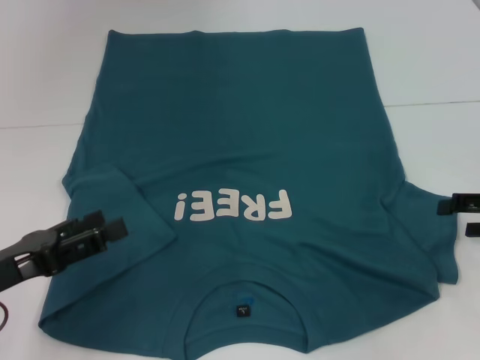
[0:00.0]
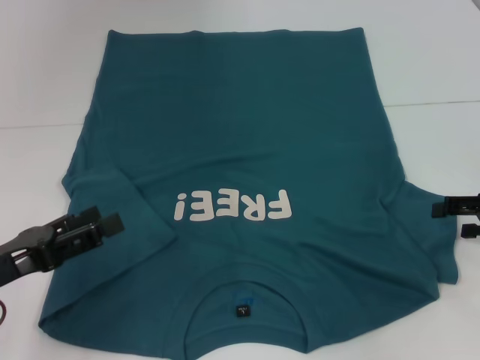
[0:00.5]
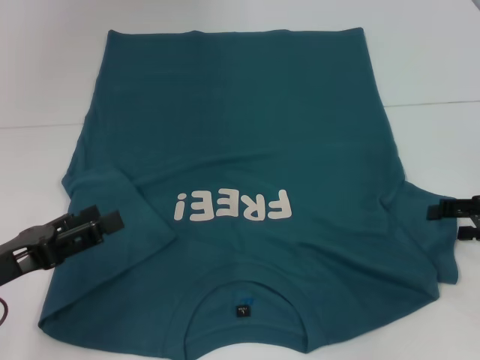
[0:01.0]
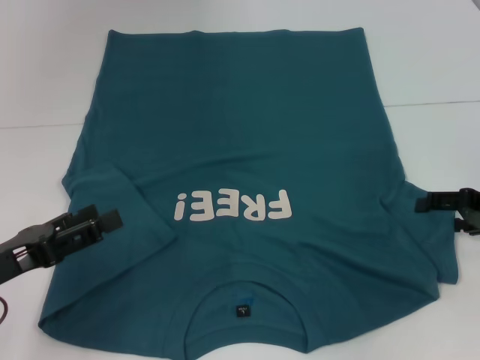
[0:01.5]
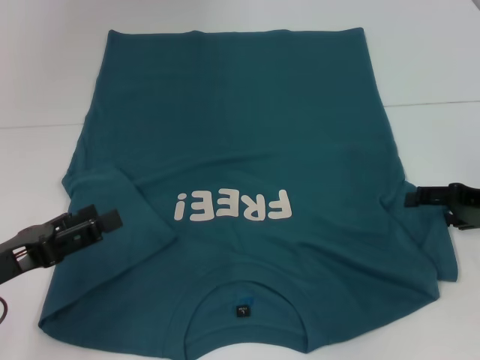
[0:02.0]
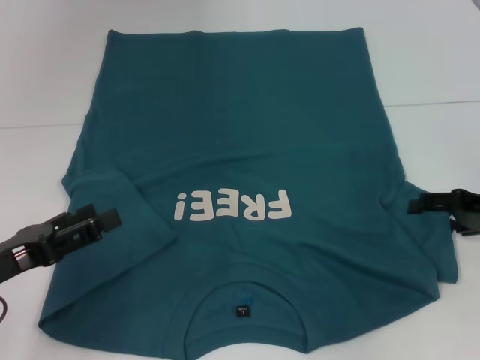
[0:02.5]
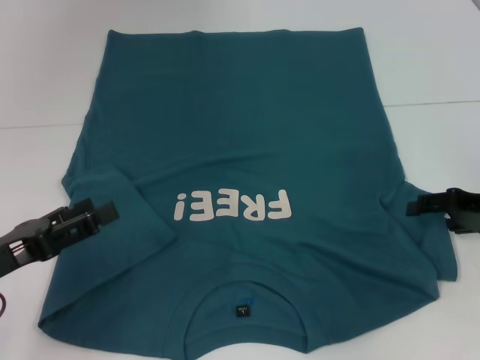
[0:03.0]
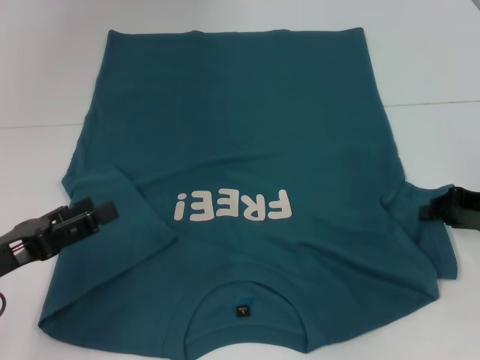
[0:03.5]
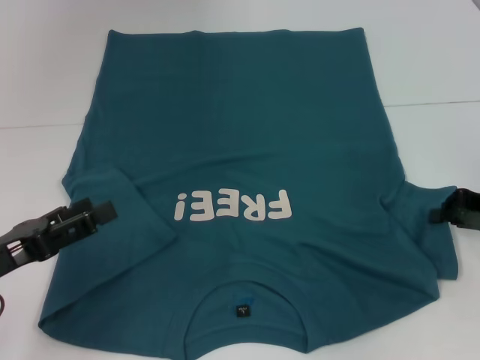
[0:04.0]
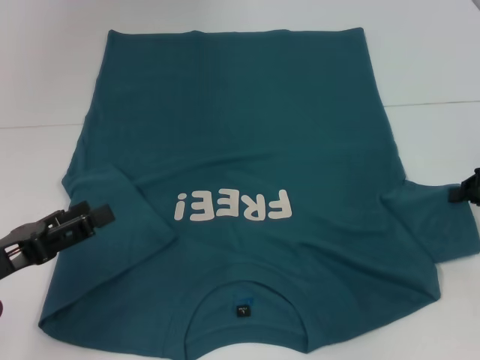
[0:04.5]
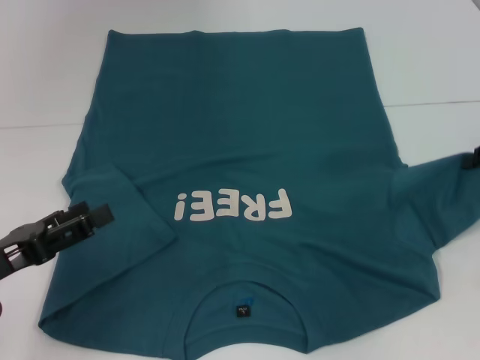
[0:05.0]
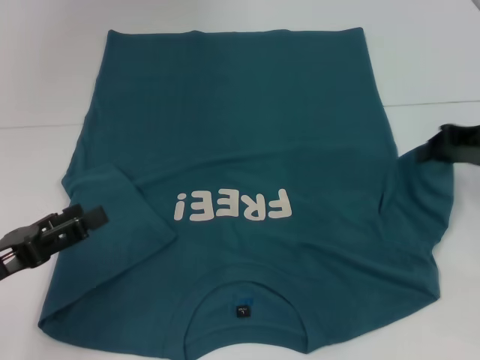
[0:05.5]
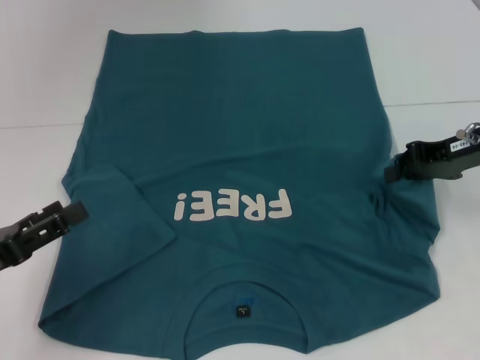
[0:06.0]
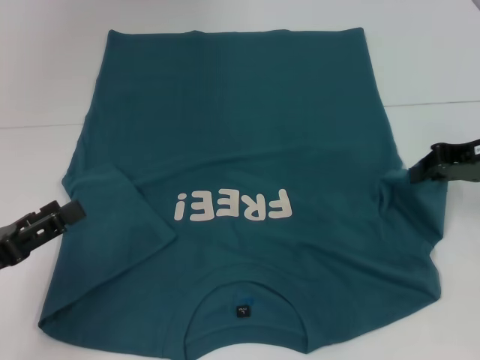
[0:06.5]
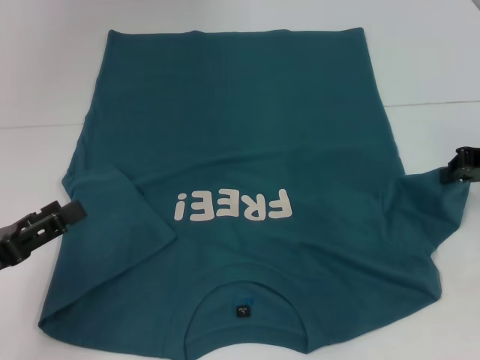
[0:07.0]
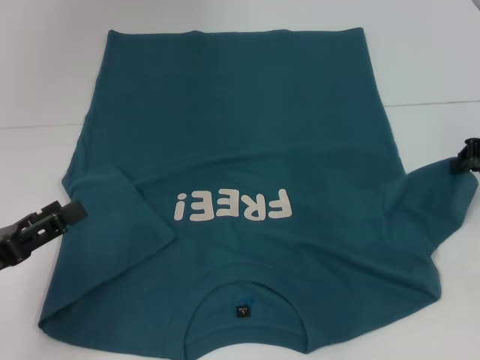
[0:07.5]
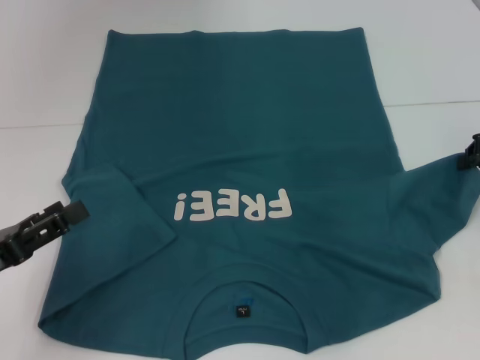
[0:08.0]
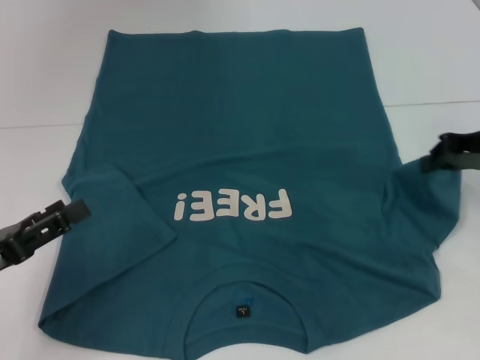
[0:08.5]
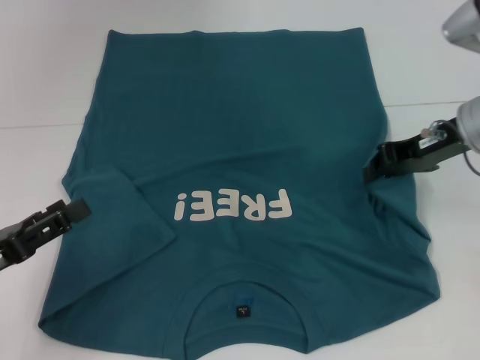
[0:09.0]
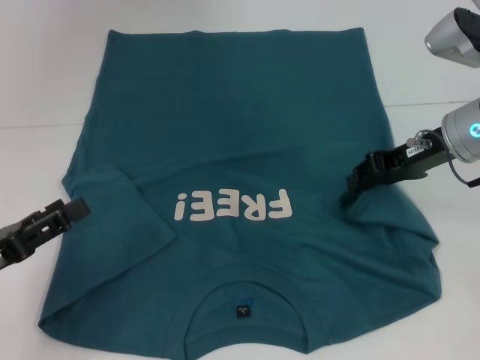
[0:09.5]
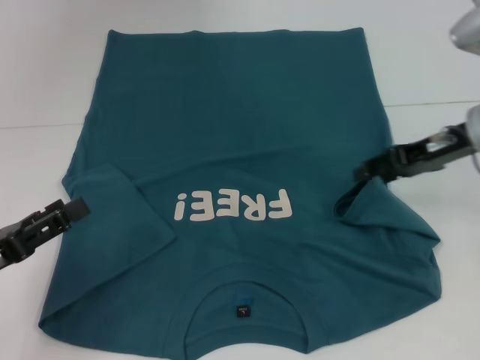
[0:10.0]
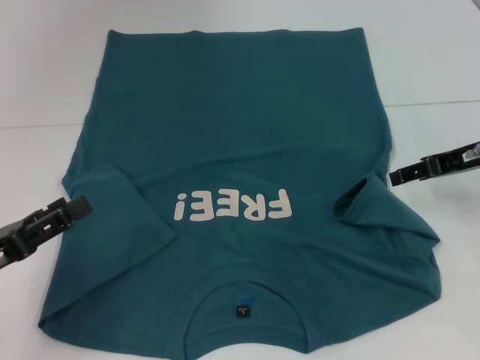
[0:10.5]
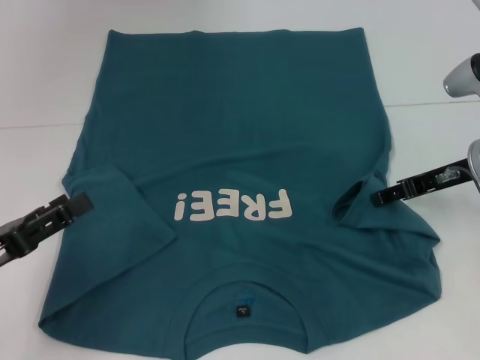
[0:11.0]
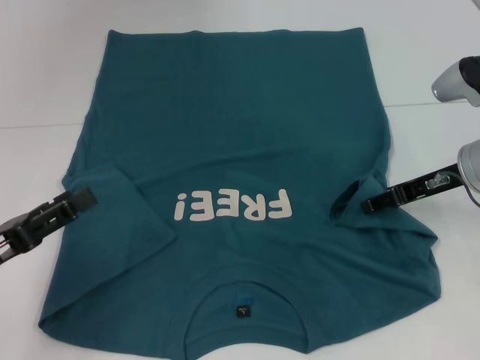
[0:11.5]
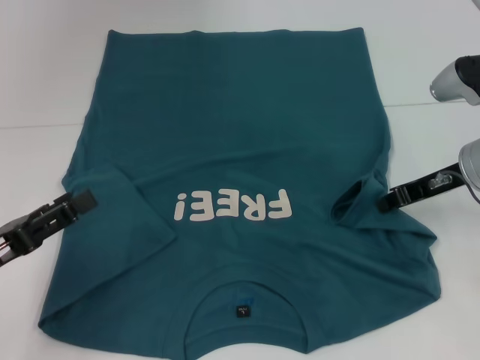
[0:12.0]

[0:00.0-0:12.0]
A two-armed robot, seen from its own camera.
0:00.0 to 0:02.0: The grippers stay close to where they were, moving slightly.
0:02.0 to 0:04.0: The right gripper closes up.
0:04.0 to 0:06.0: The right gripper goes approximately 10 cm upward and to the left.
0:06.0 to 0:08.0: The right gripper moves to the right, about 5 cm.
0:08.0 to 0:10.0: The right gripper is displaced to the left by approximately 10 cm, and opens its fingers.
0:10.0 to 0:12.0: The grippers make only small movements.

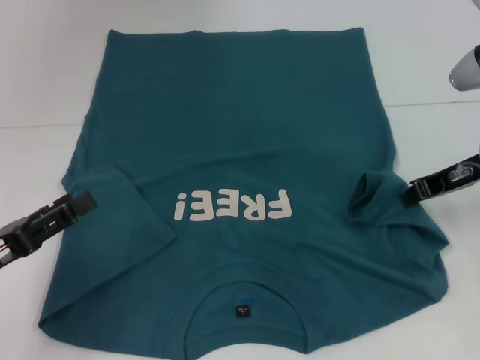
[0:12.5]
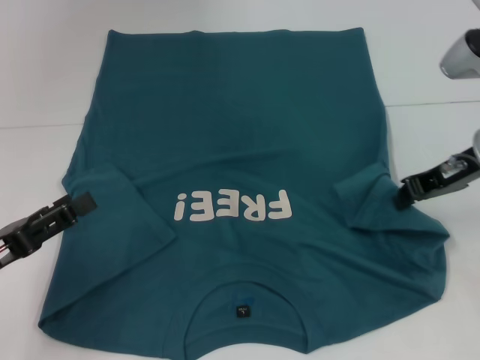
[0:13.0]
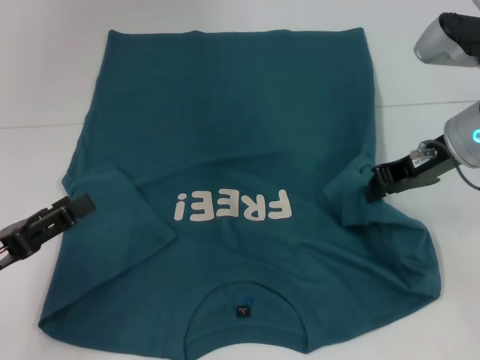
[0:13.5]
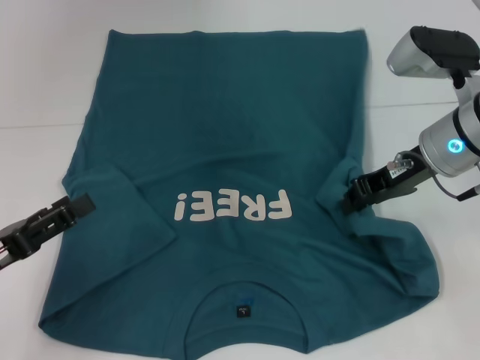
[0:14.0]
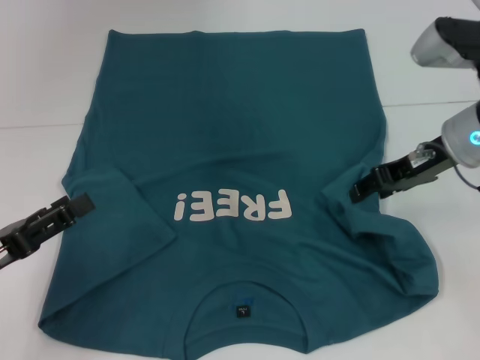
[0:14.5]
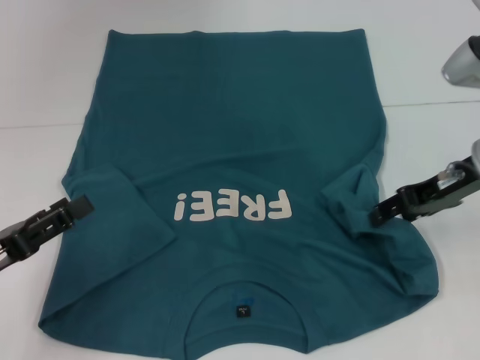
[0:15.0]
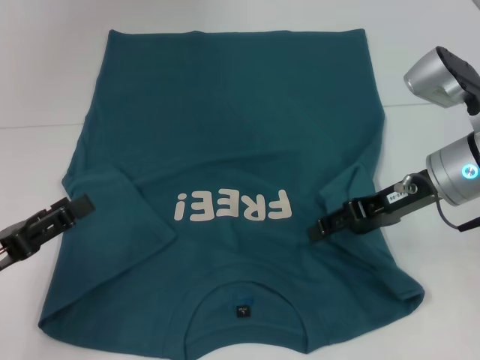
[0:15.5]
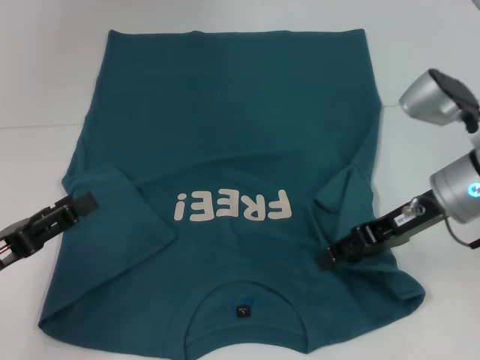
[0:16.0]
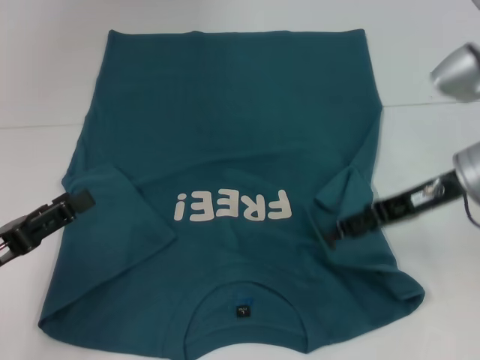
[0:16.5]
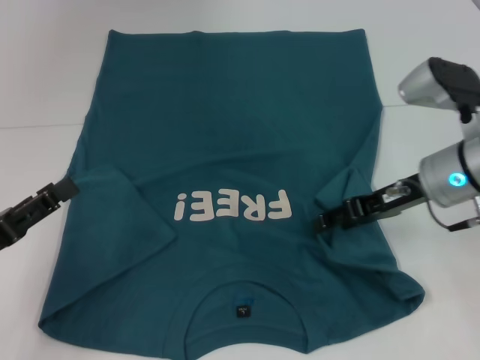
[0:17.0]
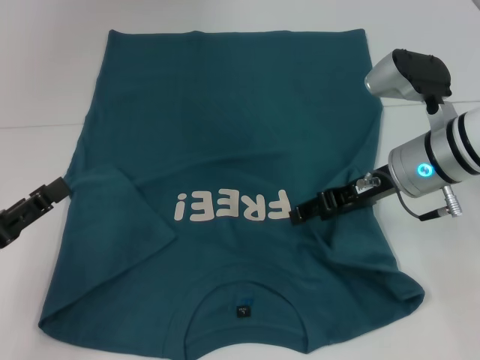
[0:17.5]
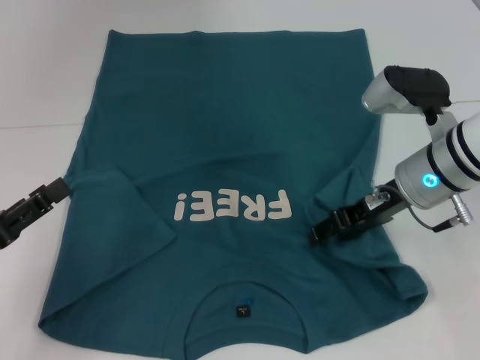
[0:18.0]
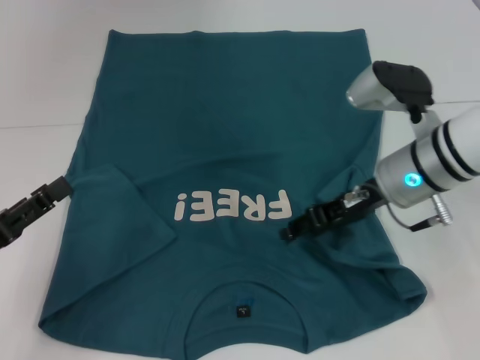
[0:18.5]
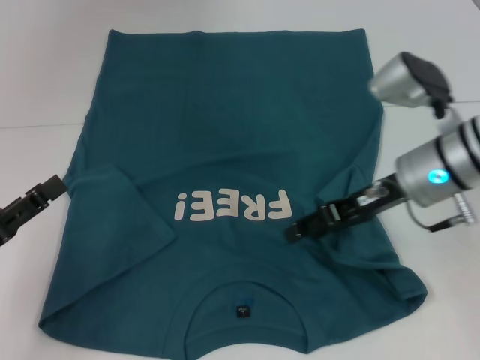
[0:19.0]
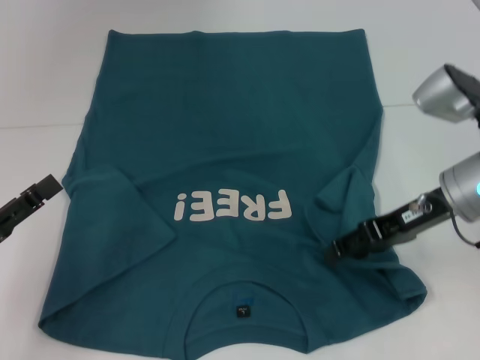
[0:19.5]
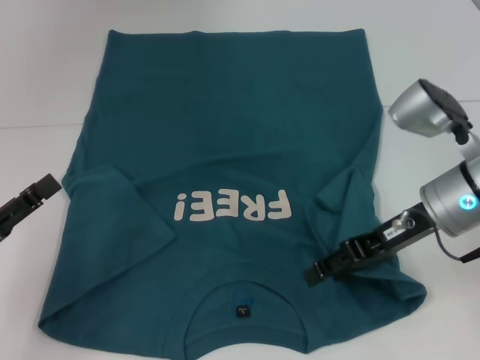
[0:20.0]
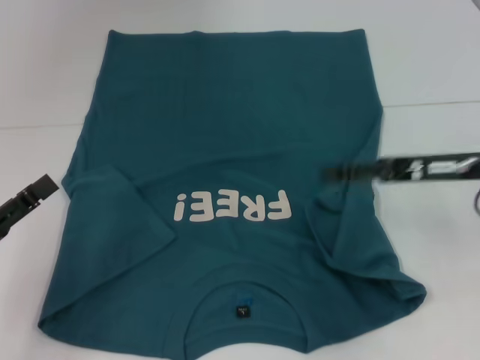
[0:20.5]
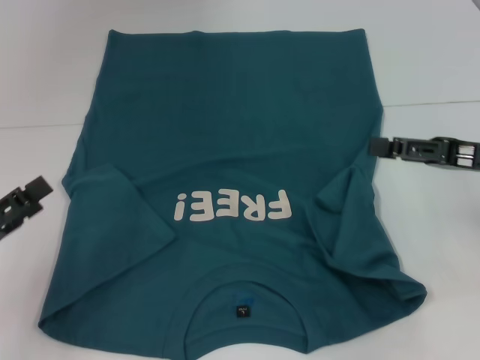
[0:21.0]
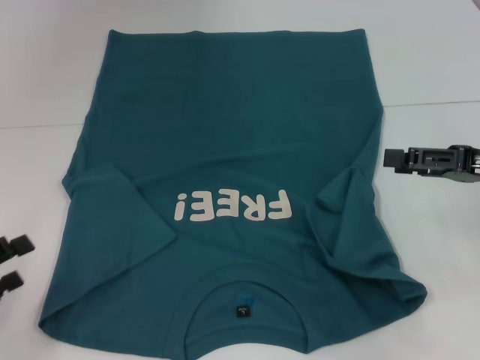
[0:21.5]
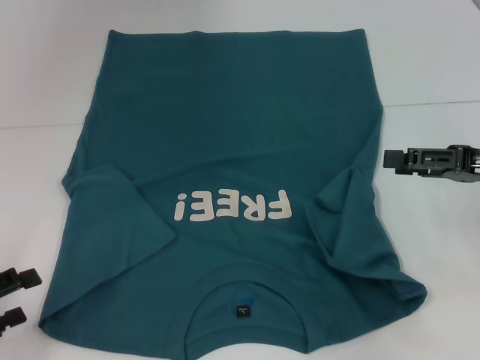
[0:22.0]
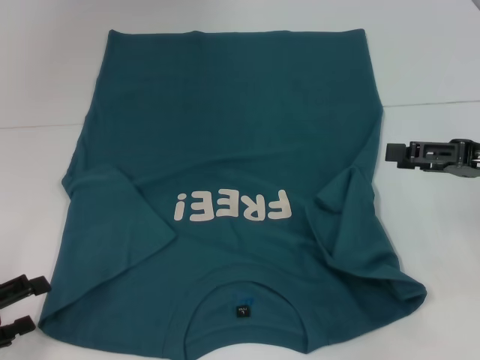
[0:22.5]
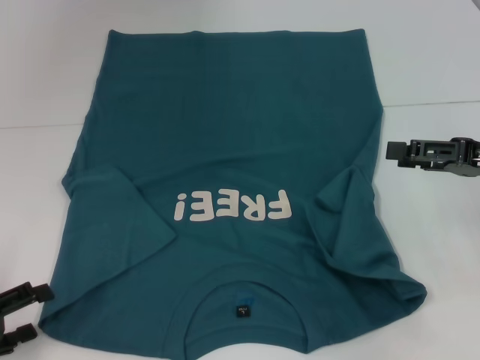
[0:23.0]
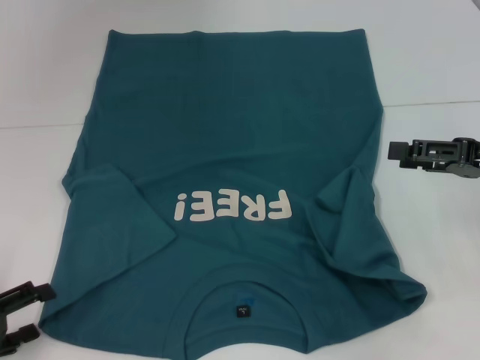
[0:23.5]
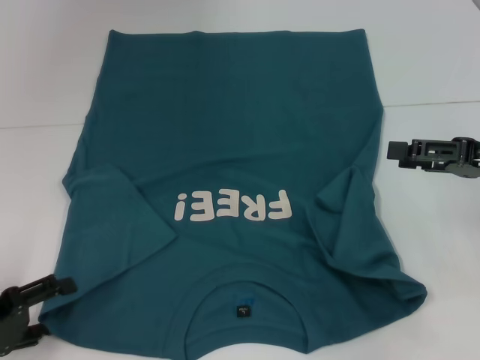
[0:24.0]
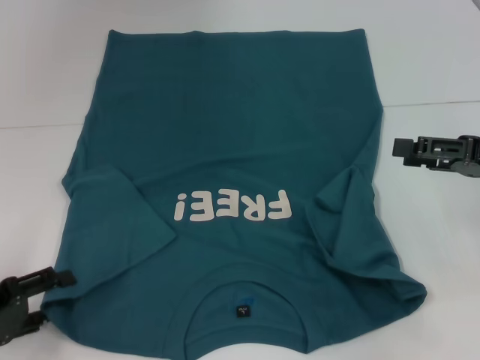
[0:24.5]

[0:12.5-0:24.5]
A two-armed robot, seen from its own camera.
Step, 0:12.5 to 0:20.5: Fold the bottom right sleeve to the right.
0:12.5 to 0:14.5: The right gripper shifts by approximately 5 cm, and opens.
0:16.5 to 0:18.5: The right gripper travels to the left by about 5 cm.
0:18.5 to 0:20.5: The right gripper moves to the right, some 10 cm.
0:20.5 to 0:22.5: The right gripper moves to the right, about 5 cm.
0:22.5 to 0:24.5: The grippers make only small movements.

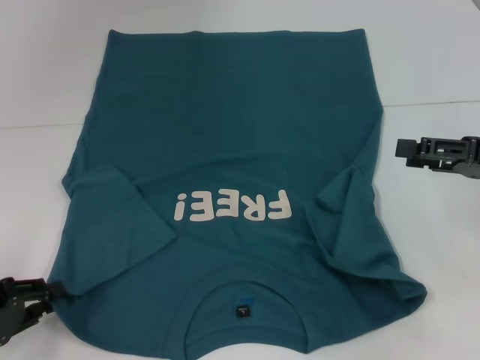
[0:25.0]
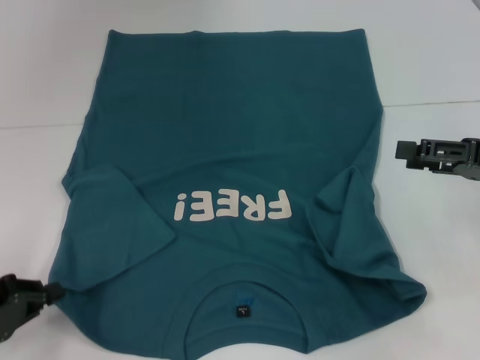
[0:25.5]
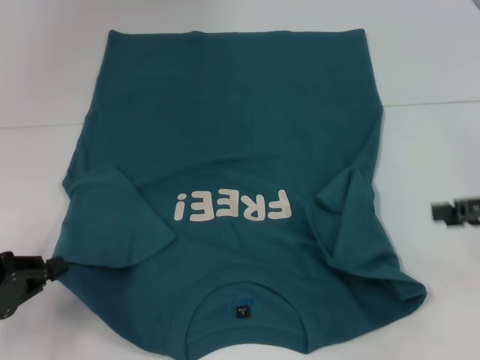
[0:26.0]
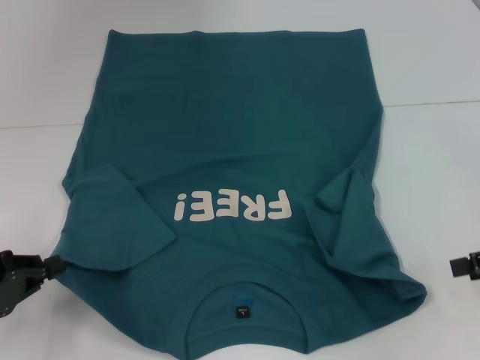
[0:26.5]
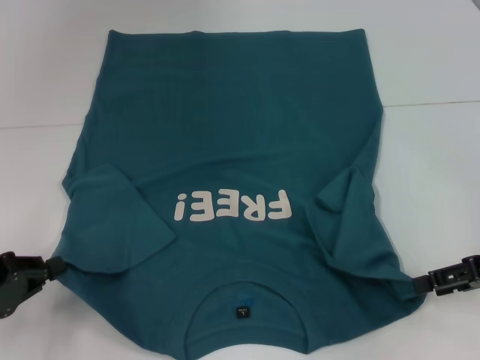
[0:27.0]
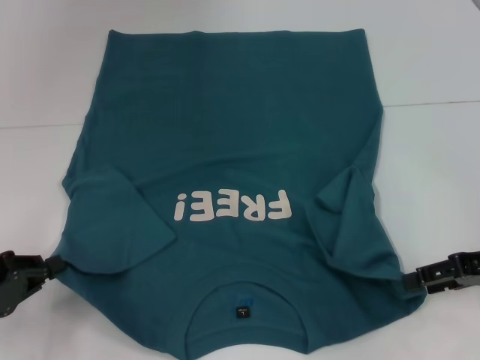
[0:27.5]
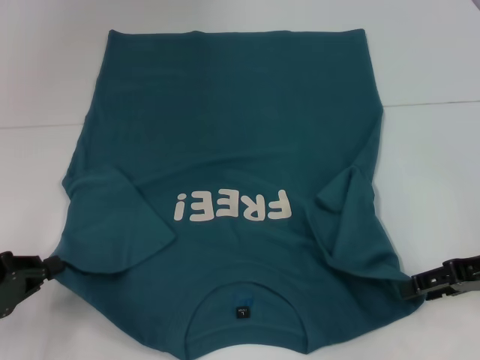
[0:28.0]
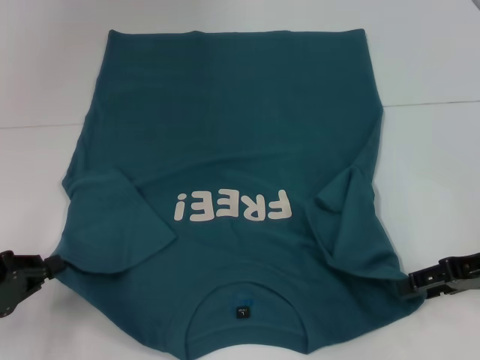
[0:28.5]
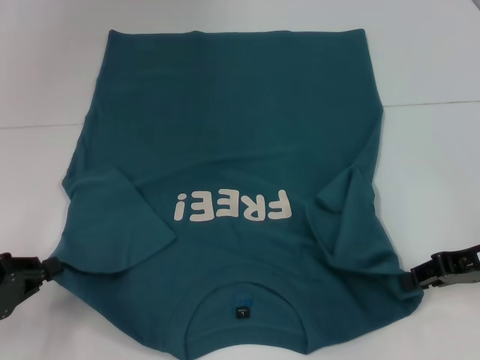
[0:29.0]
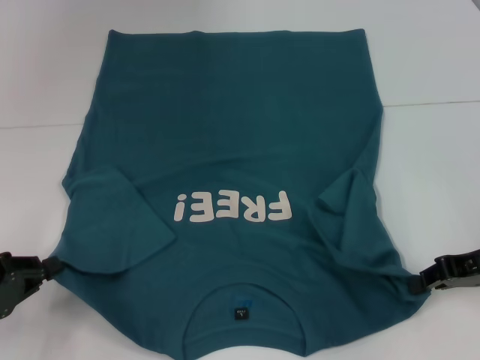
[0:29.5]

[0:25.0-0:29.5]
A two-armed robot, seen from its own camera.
0:25.0 to 0:27.0: The left gripper closes up.
0:27.0 to 0:29.5: The right gripper closes up.
